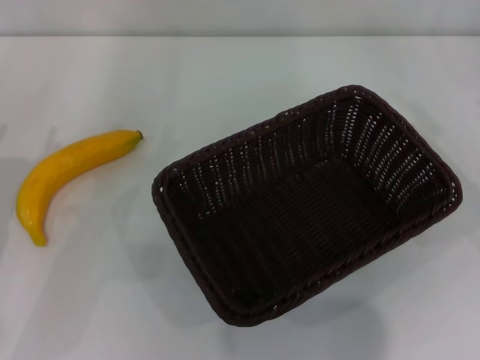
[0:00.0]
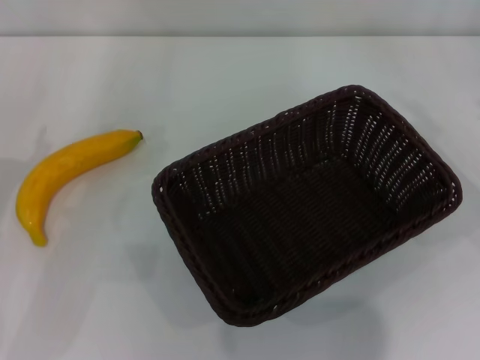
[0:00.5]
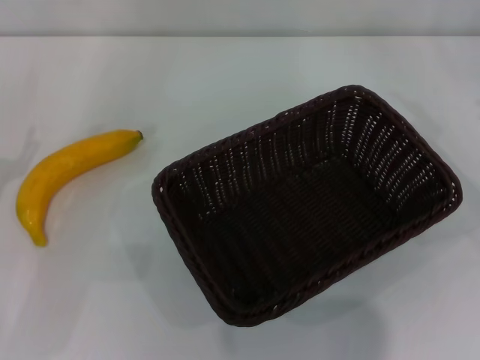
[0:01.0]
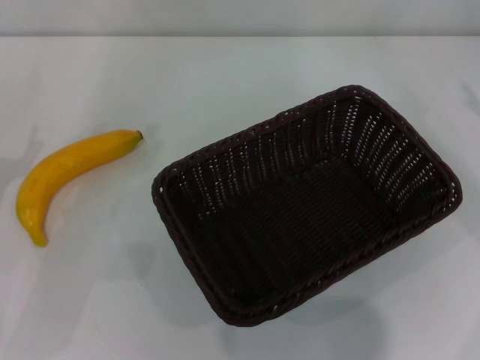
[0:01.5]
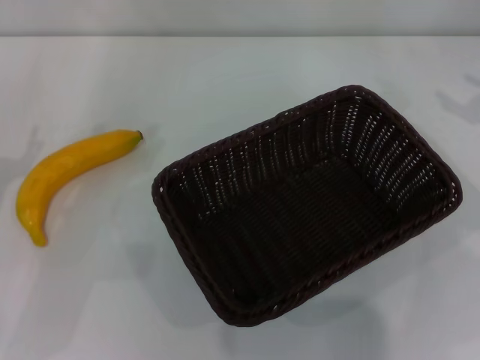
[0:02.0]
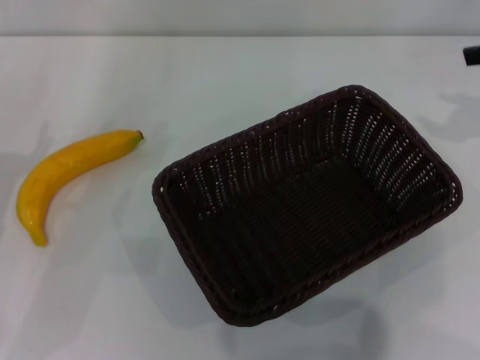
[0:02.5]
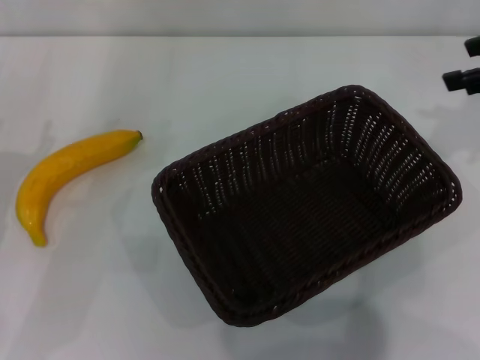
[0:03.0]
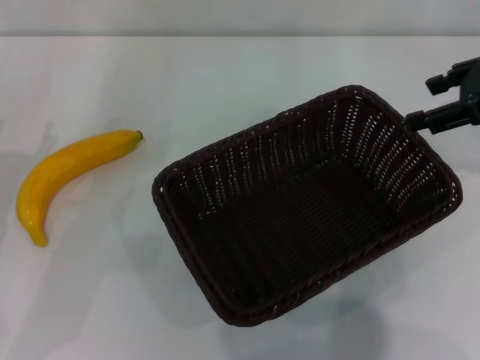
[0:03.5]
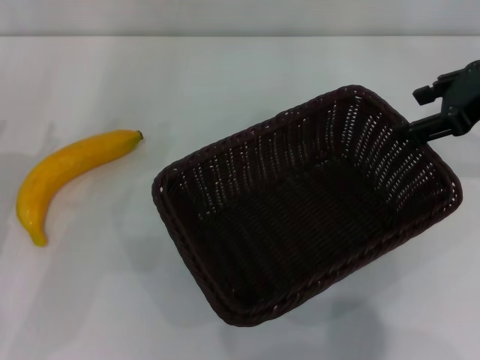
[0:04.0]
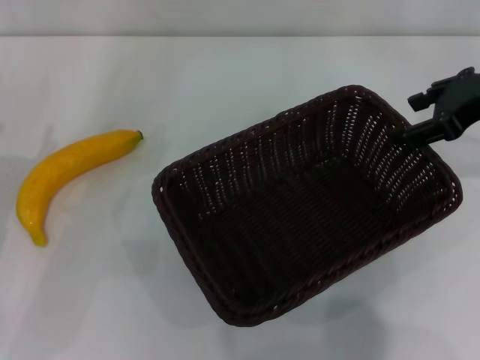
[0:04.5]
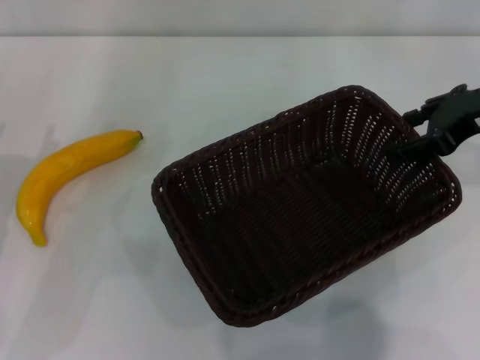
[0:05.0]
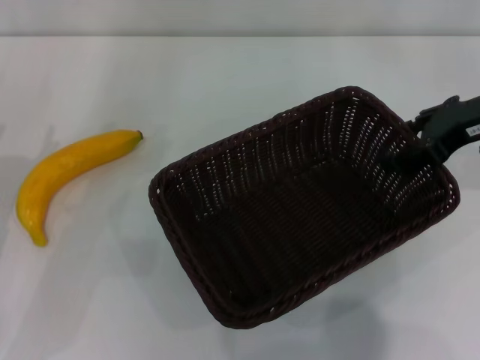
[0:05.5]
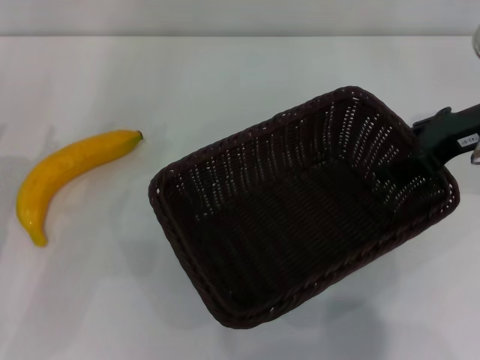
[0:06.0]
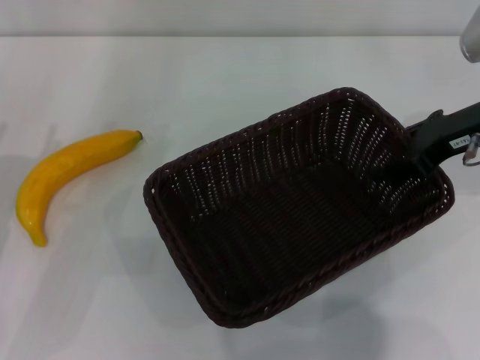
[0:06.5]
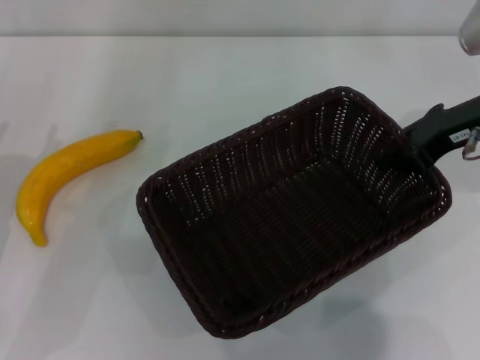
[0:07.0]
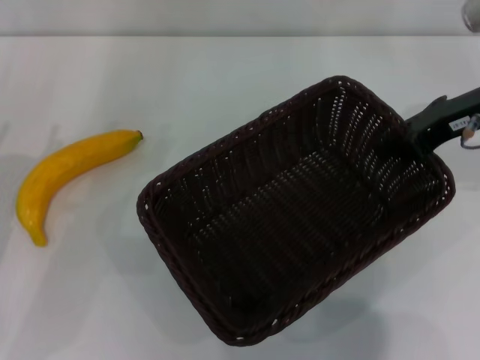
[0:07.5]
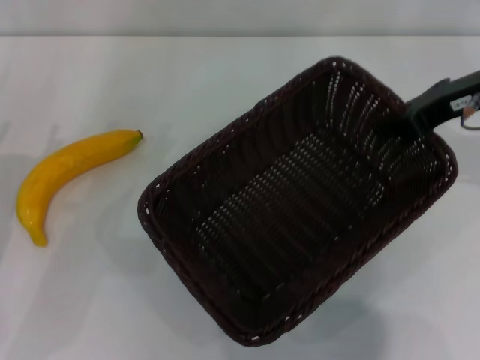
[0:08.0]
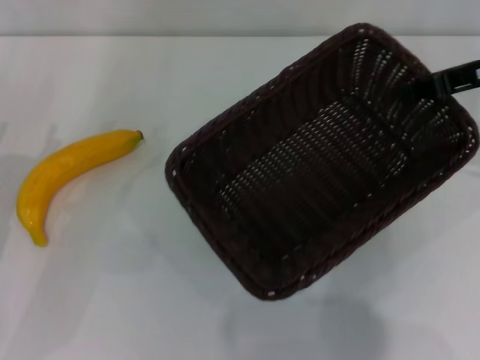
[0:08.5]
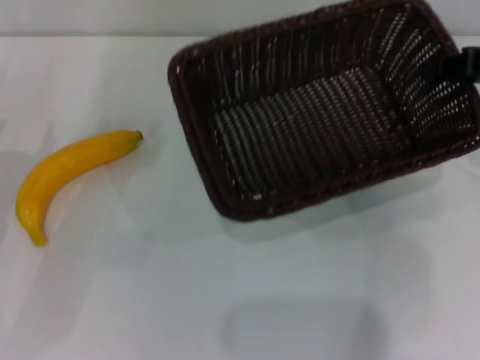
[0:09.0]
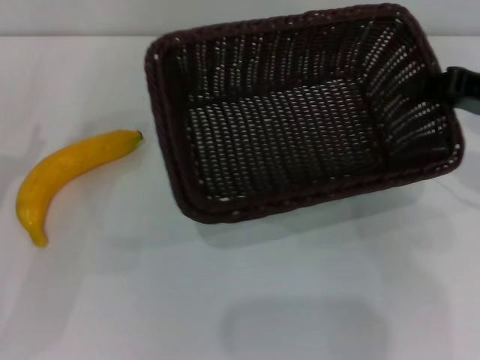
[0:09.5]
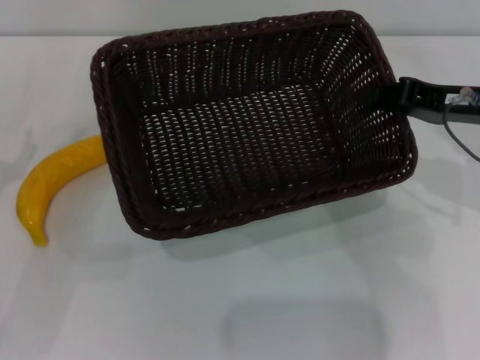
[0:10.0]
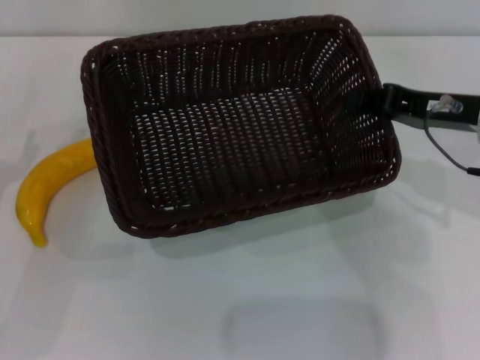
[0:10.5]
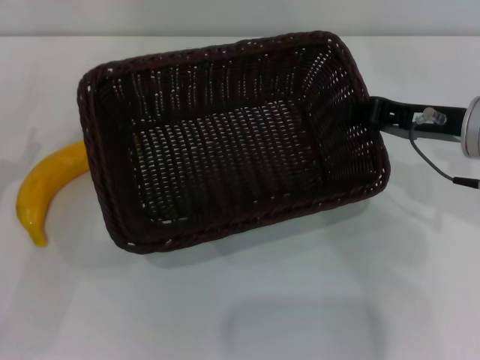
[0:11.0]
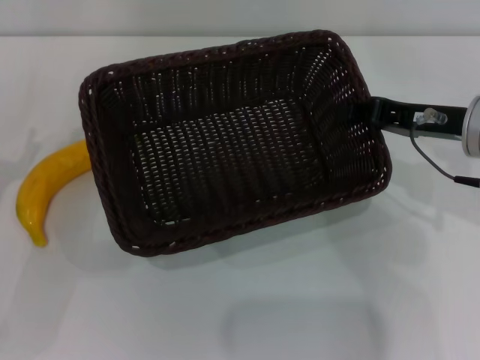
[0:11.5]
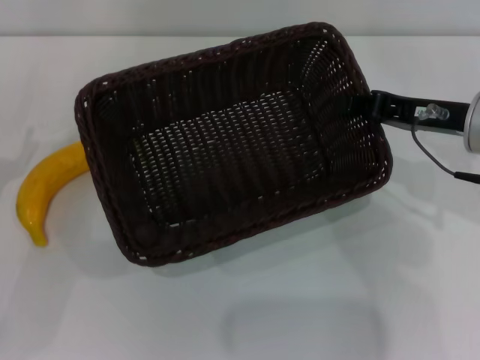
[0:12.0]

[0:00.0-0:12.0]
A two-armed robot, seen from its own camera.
Step, 0:00.0 to 0:07.0: Pick up the dark basket with the right gripper.
0:02.0 to 0:04.0: The right gripper travels to the left by approximately 10 cm.
0:04.0 to 0:06.0: The right gripper moves roughly 5 cm.
0:06.0 to 0:08.0: The right gripper closes its fingers.
0:08.0 to 0:10.0: The right gripper shifts by some 5 cm.
0:10.0 to 0:12.0: There are only small adjustments of the grippers.

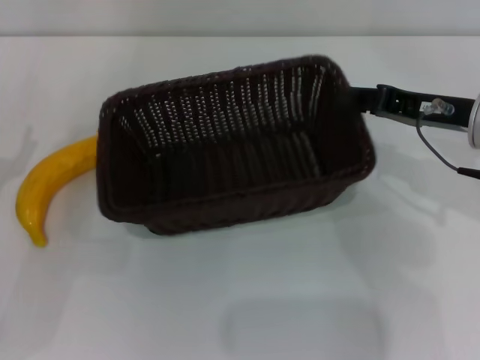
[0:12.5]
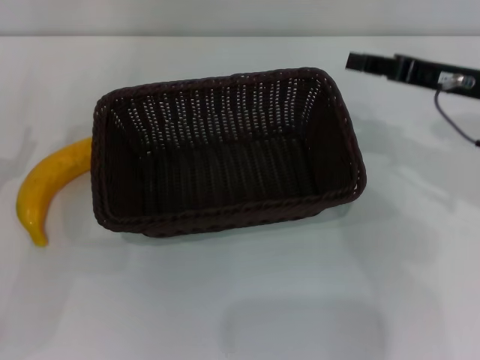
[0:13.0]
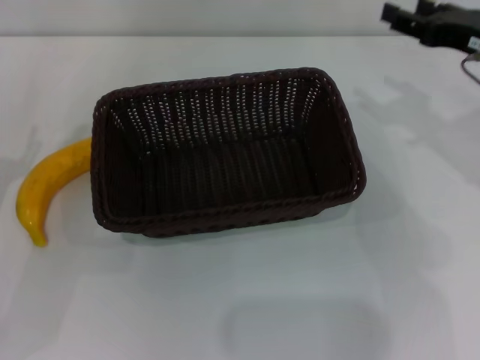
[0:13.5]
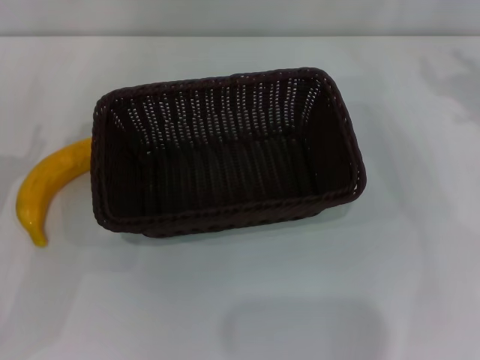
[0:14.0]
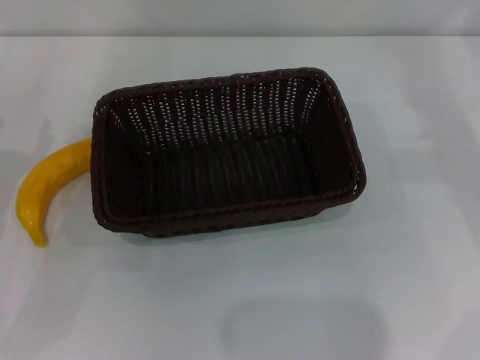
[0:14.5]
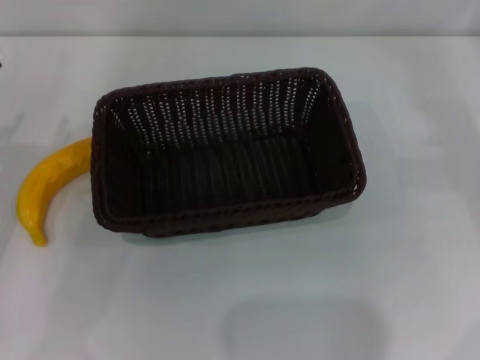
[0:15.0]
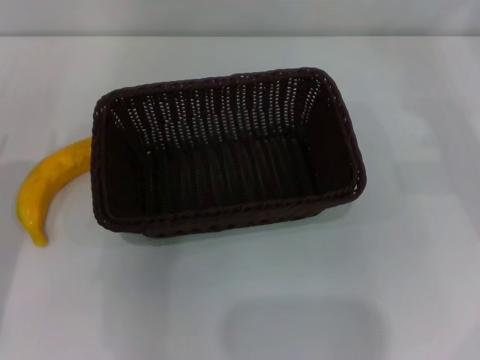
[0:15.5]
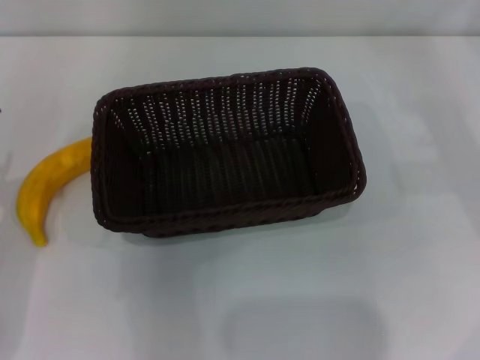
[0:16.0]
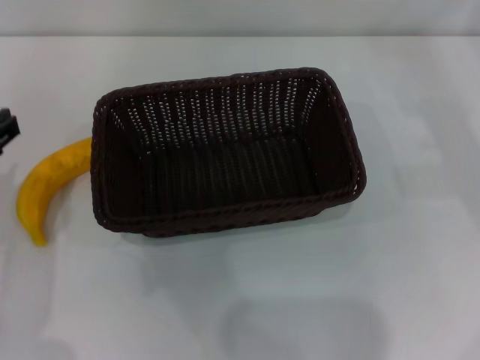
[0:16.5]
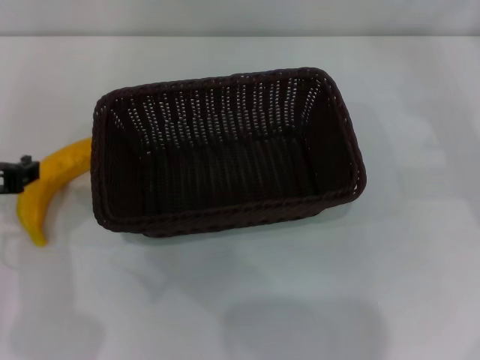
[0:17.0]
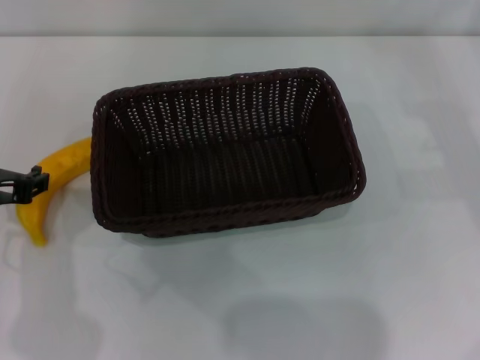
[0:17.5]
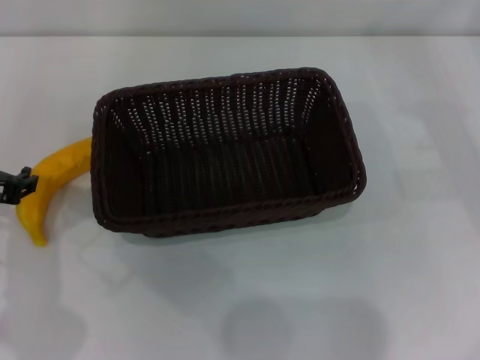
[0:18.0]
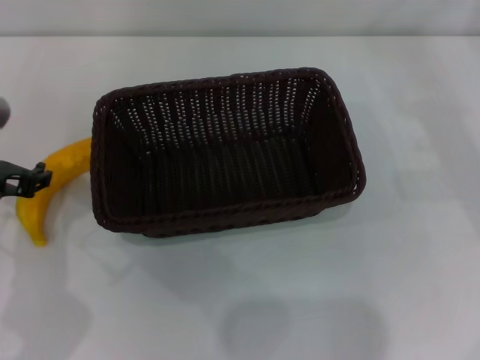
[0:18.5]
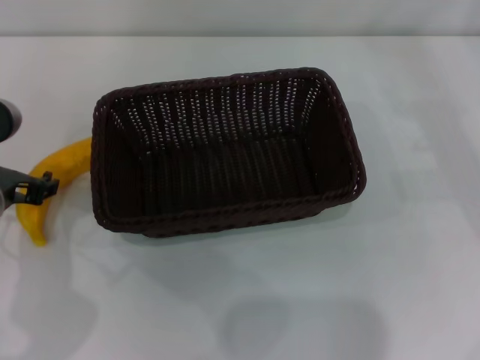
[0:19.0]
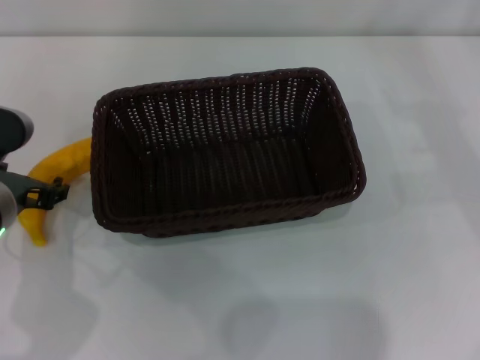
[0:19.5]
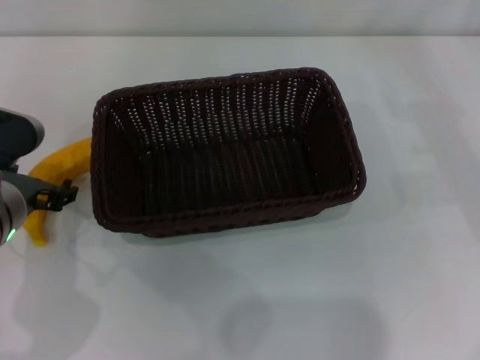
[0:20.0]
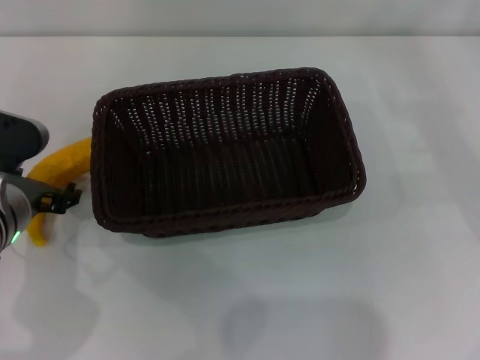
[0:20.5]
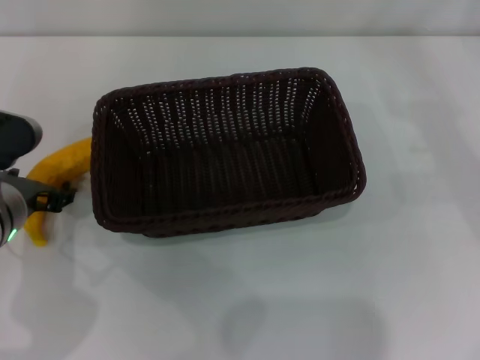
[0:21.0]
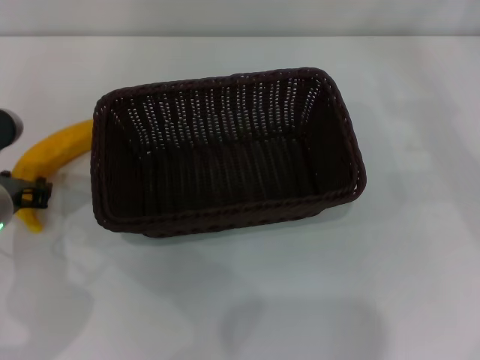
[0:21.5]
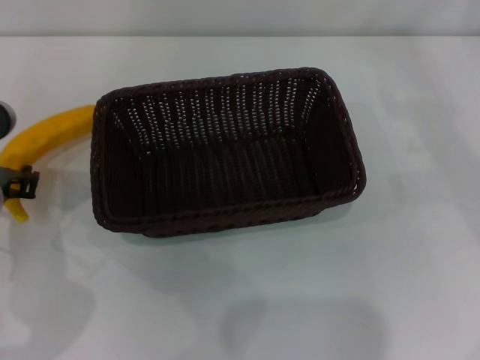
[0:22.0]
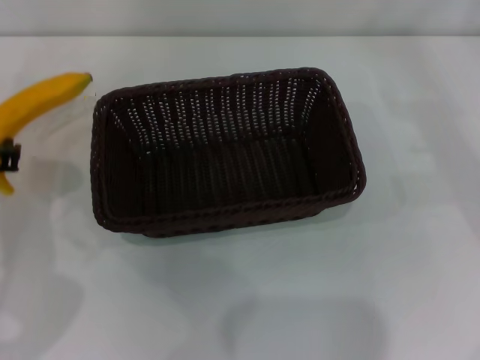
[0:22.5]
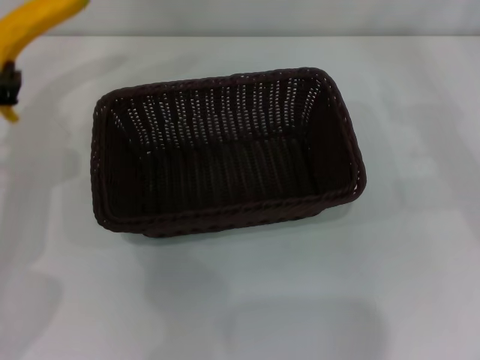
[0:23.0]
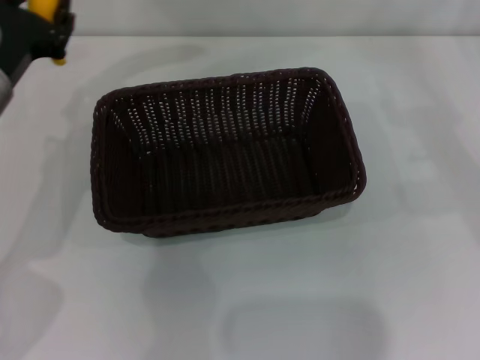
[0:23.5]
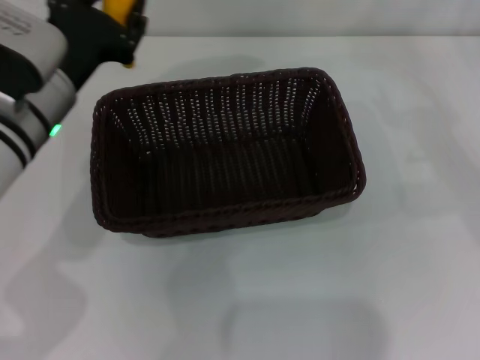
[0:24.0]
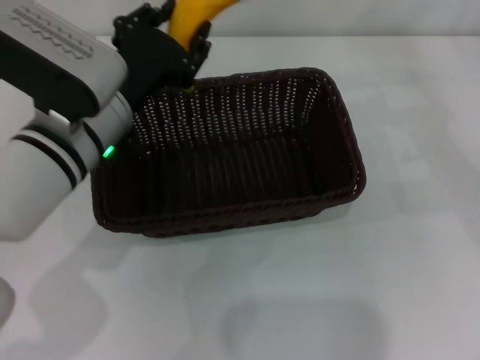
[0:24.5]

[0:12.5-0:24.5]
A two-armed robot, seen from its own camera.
Step, 0:13.0 to 0:22.0: Pick up the banana with the left gripper.
0:12.5 to 0:14.5: The right gripper is displaced to the right by roughly 15 cm, and opens.
0:14.5 to 0:16.5: The left gripper is displaced upward and to the right by about 15 cm.
0:16.5 to 0:18.5: The left gripper changes place by roughly 5 cm.
0:18.5 to 0:20.5: The grippers stay close to where they were, moving slightly.
0:20.5 to 0:22.5: The left gripper closes.
0:22.5 to 0:24.5: The left gripper travels to the right by about 10 cm.

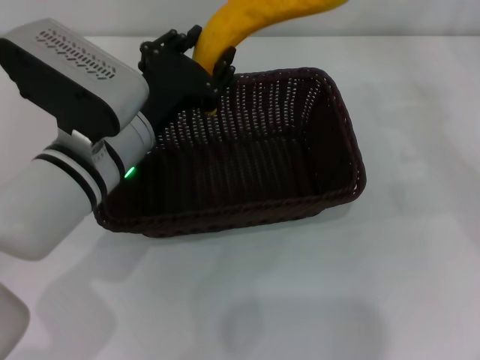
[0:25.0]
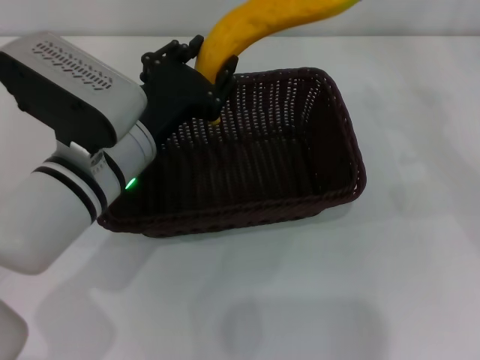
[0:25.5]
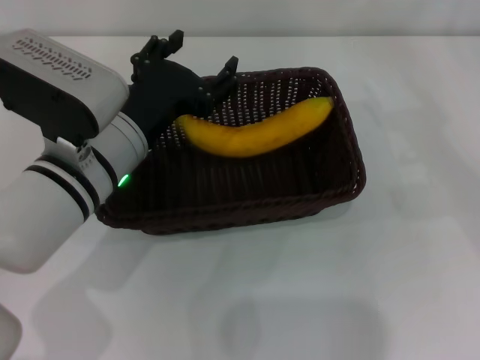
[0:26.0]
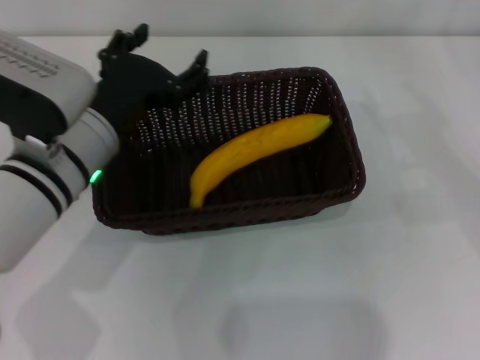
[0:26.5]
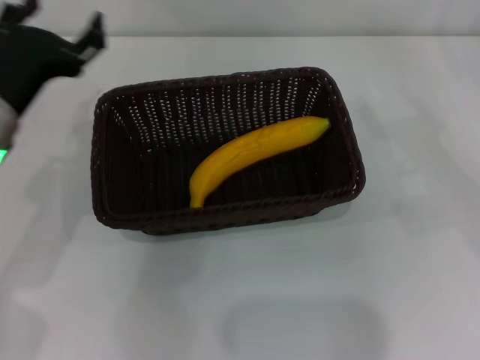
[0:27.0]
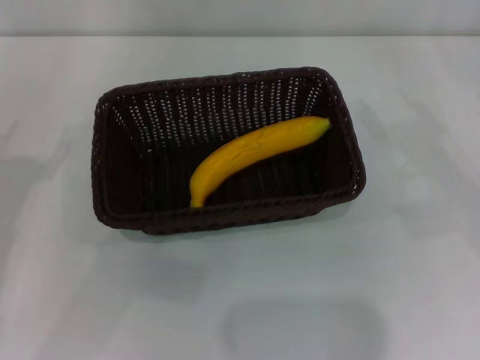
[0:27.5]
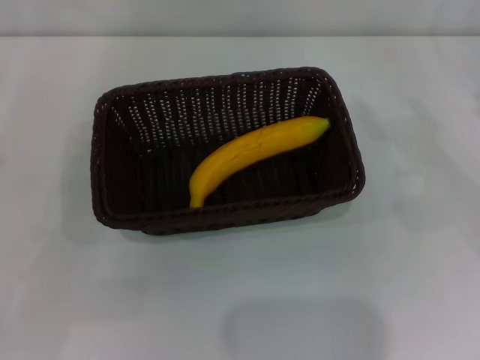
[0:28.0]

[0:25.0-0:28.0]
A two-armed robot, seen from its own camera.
0:25.0 to 0:26.5: The left gripper opens its fingers.
0:26.5 to 0:28.0: The left gripper heads to the left and backward, covering roughly 20 cm.
